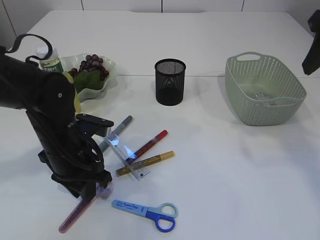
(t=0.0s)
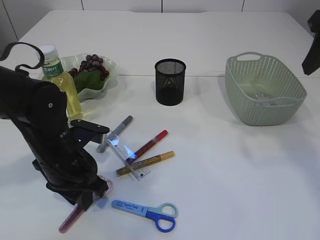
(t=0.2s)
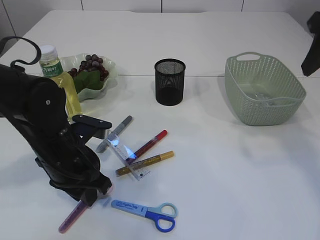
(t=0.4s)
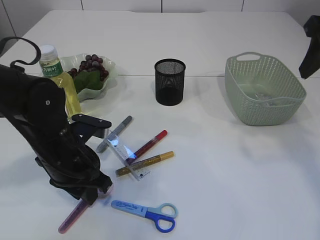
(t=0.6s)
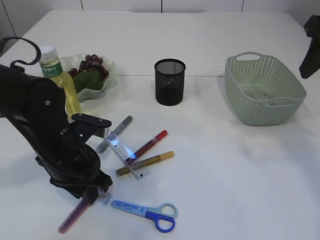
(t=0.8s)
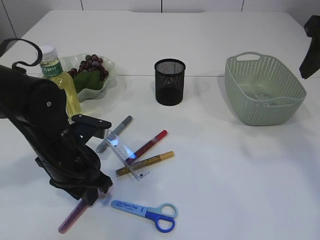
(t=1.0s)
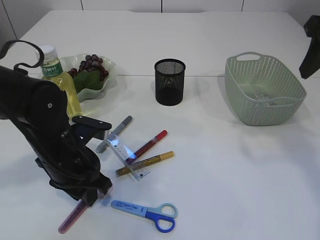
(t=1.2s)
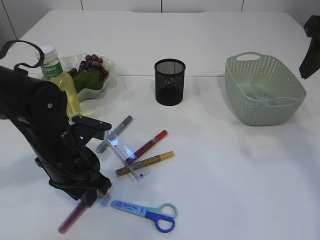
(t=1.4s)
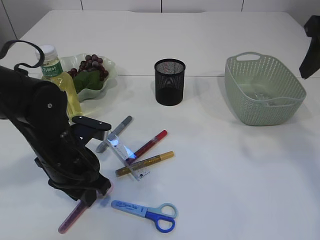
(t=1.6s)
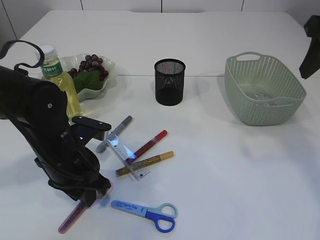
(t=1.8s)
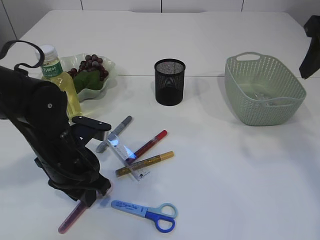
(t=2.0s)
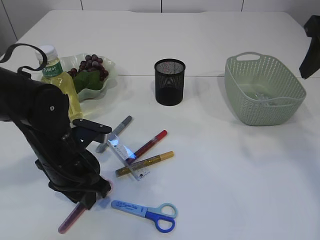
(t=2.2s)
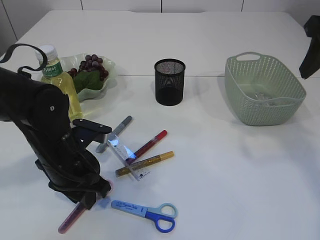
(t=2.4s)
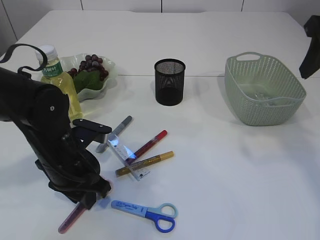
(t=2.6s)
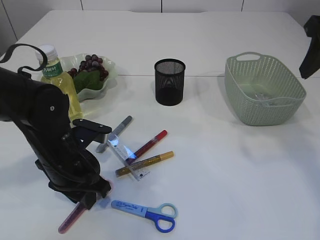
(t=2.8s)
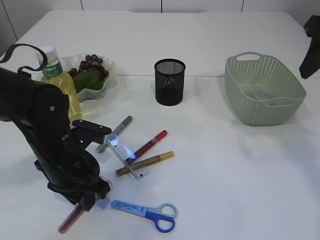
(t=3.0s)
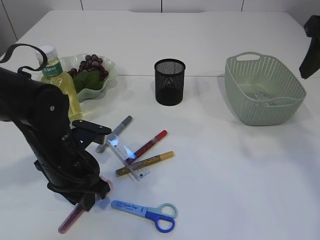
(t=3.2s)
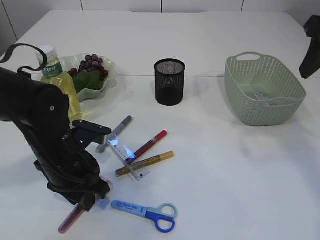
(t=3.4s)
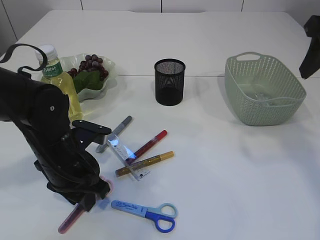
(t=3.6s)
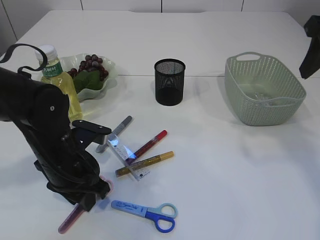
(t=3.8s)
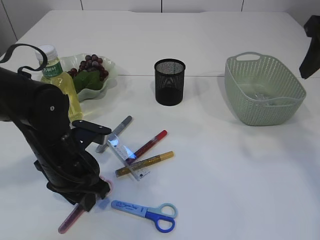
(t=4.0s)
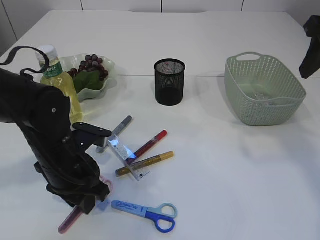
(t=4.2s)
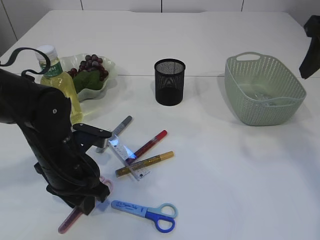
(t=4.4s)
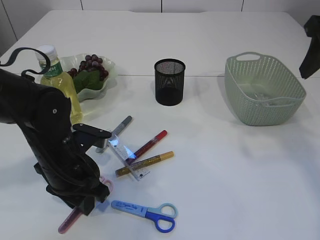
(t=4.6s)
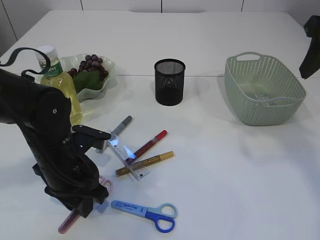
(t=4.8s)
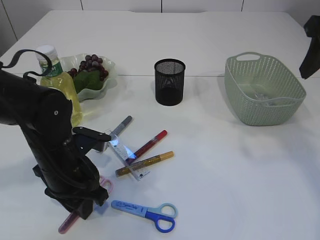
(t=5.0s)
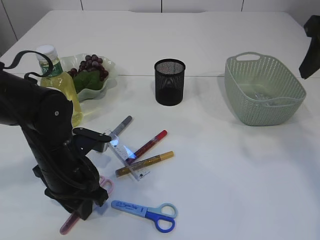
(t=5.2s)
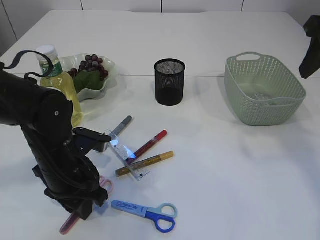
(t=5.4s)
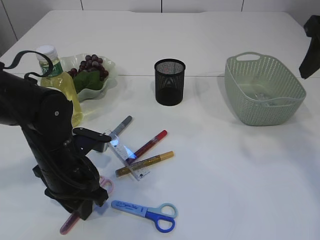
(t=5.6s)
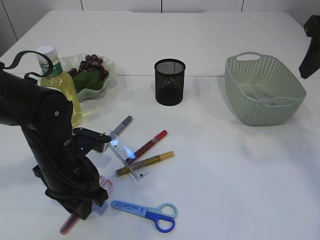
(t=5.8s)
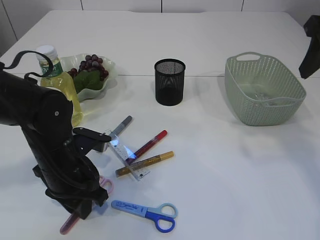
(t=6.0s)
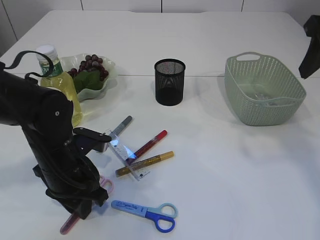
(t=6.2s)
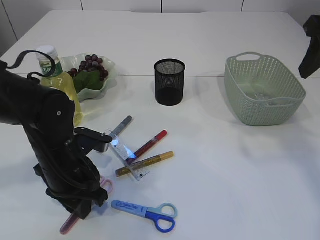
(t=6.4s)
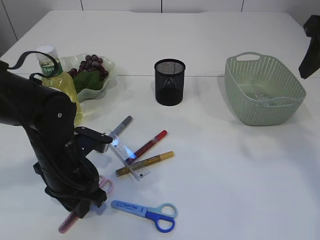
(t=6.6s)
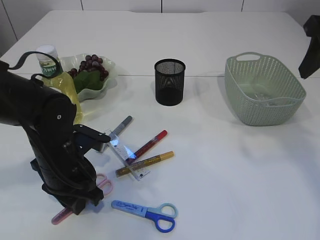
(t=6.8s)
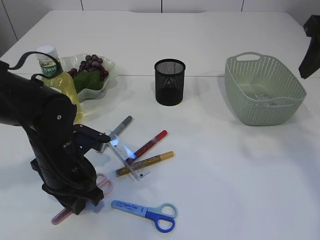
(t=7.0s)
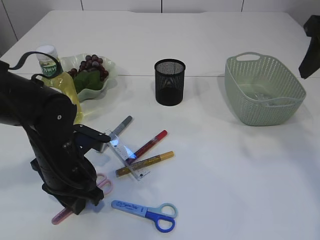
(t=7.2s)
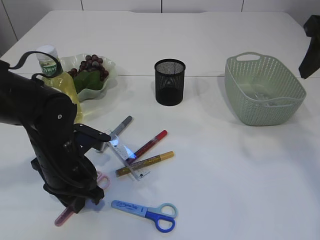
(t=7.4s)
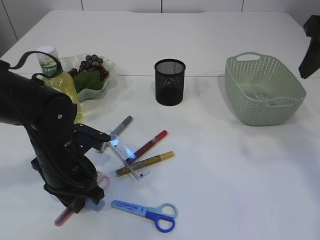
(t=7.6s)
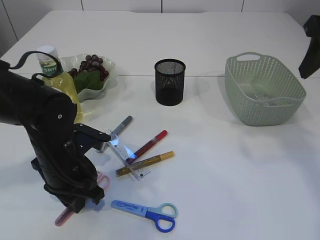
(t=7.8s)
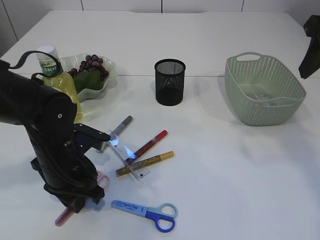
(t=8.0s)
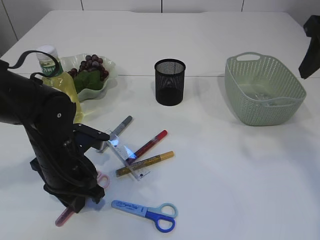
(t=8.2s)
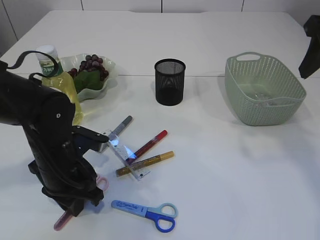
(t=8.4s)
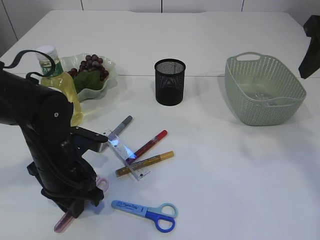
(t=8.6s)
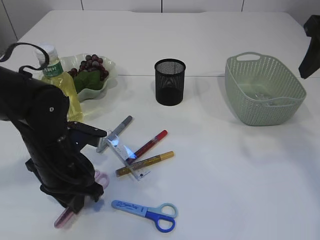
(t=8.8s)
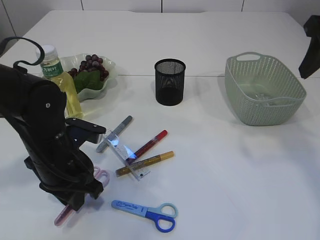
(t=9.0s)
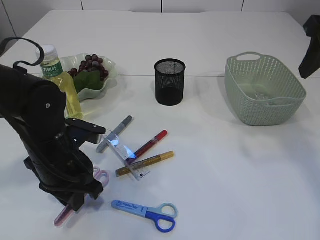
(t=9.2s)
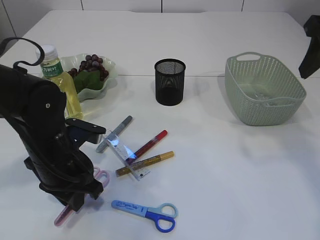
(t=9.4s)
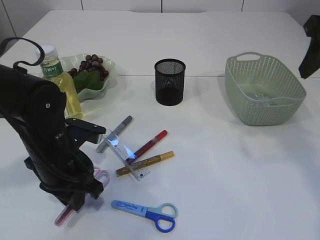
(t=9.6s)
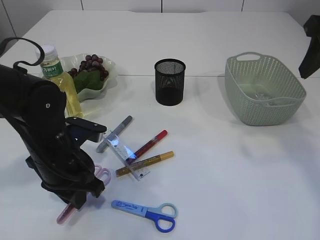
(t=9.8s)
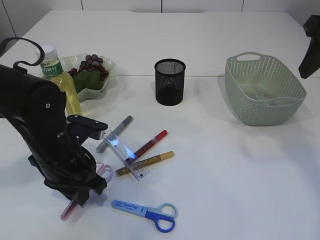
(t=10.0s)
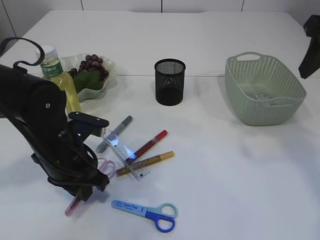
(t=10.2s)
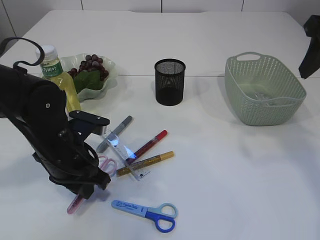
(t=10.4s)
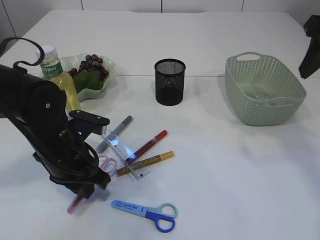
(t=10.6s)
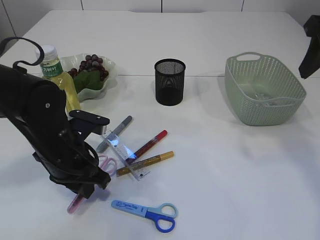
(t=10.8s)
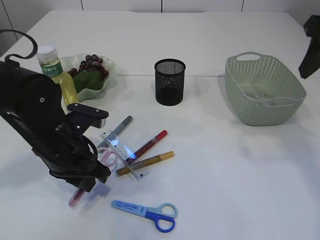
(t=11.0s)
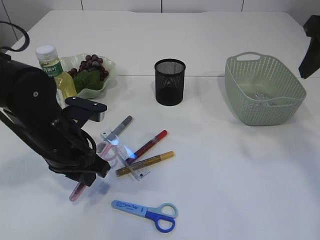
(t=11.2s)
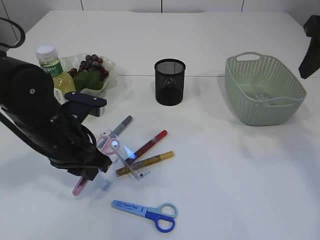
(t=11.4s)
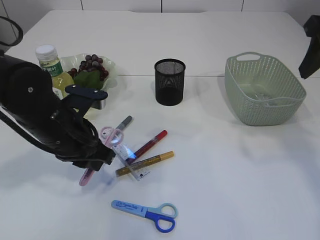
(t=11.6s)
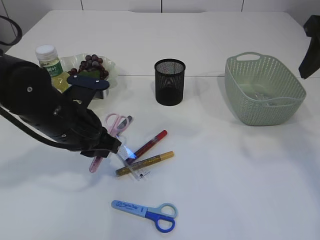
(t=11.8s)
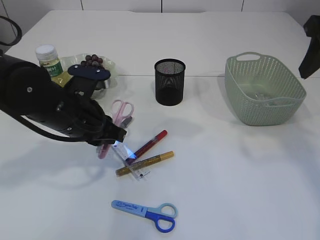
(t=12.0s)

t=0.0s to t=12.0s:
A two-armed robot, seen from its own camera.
Step, t=0.0s to t=12.0s: pick up the pink scissors.
t=0.0s to t=1.6s: There are only small adjustments of the grippers.
t=1.6s to t=4.4s: Both grippers stay about where they are.
t=4.4s to t=6.0s: The two grippers keep their place.
t=6.0s to t=10.4s: The grippers move only a little.
t=10.4s to t=12.0s: The left gripper changes place by approximately 5 cm.

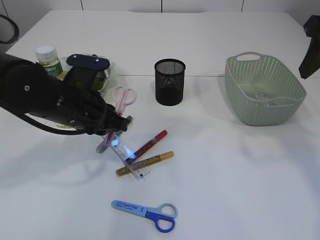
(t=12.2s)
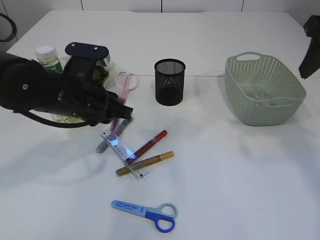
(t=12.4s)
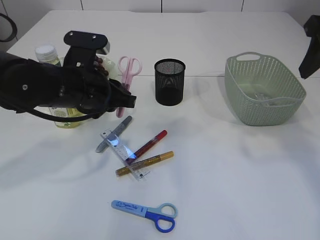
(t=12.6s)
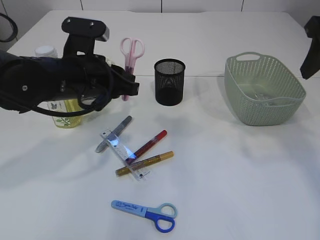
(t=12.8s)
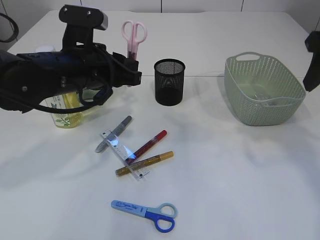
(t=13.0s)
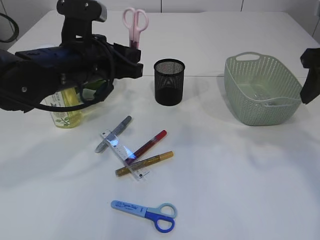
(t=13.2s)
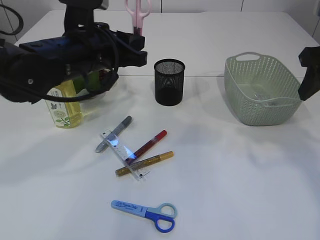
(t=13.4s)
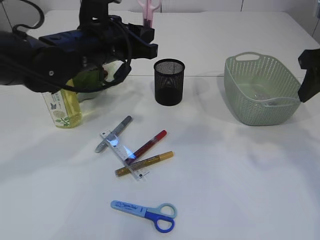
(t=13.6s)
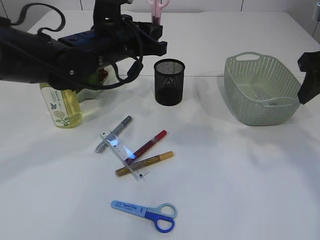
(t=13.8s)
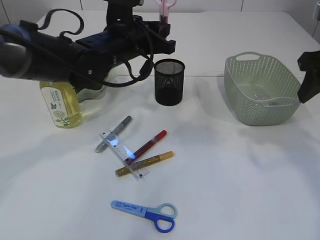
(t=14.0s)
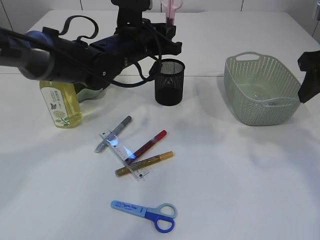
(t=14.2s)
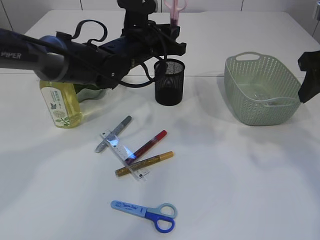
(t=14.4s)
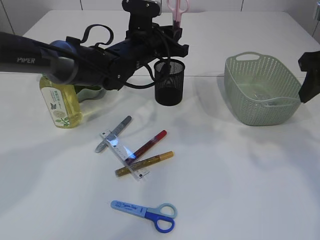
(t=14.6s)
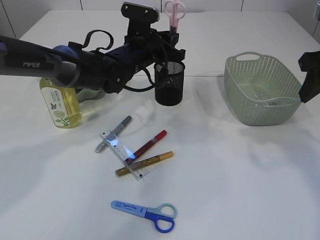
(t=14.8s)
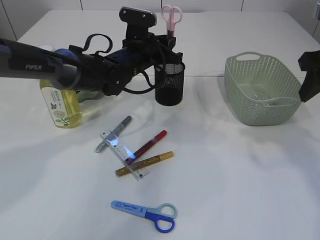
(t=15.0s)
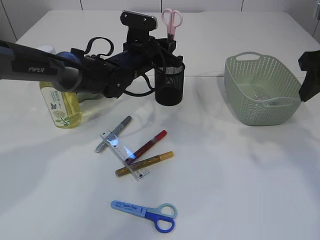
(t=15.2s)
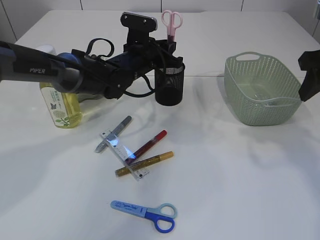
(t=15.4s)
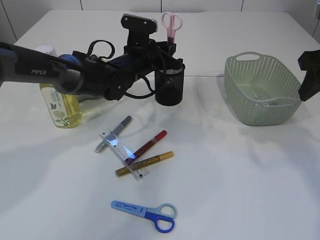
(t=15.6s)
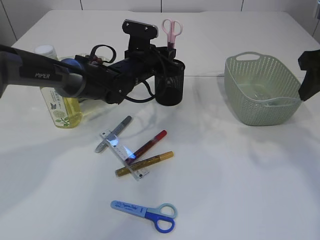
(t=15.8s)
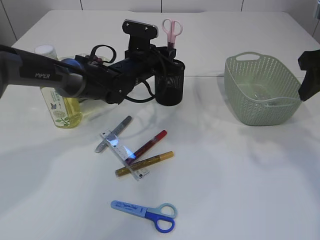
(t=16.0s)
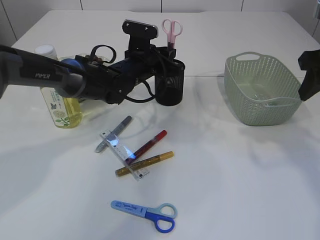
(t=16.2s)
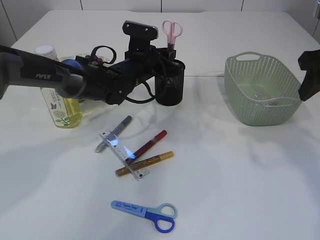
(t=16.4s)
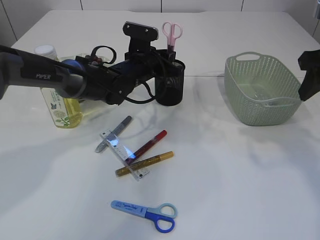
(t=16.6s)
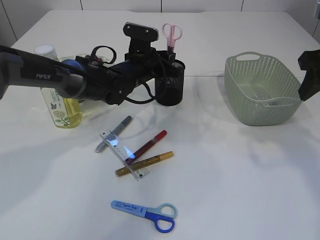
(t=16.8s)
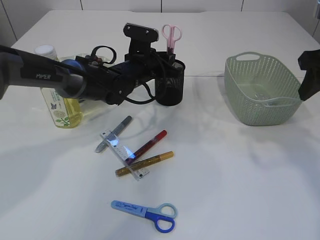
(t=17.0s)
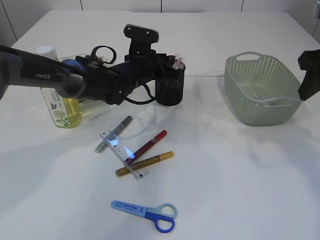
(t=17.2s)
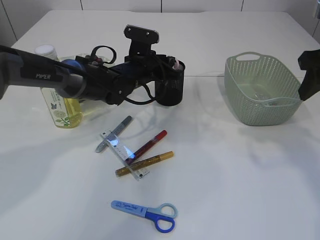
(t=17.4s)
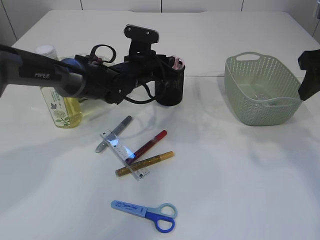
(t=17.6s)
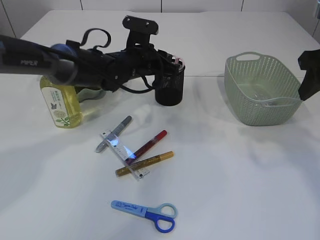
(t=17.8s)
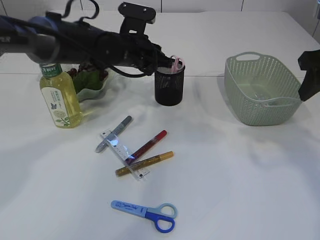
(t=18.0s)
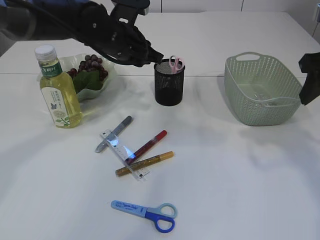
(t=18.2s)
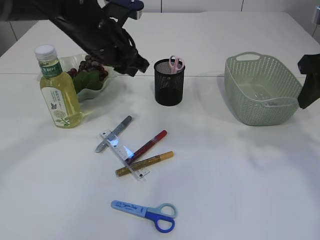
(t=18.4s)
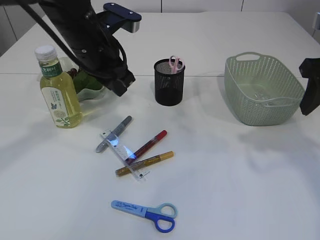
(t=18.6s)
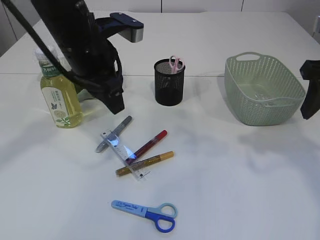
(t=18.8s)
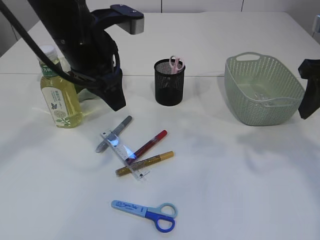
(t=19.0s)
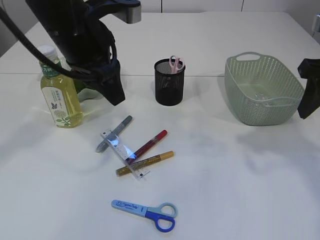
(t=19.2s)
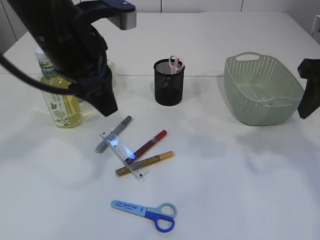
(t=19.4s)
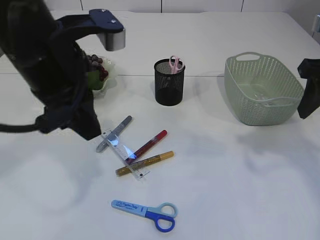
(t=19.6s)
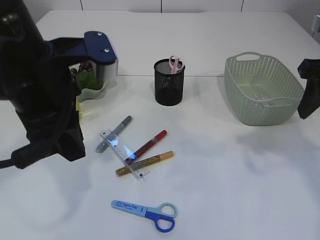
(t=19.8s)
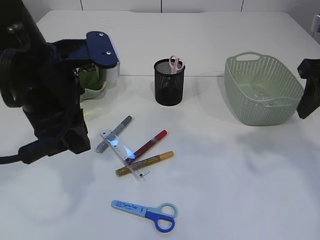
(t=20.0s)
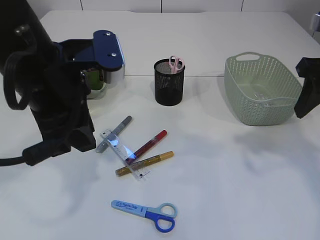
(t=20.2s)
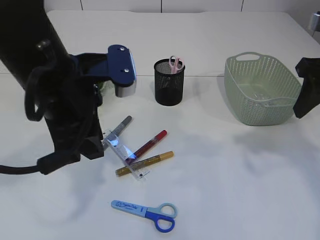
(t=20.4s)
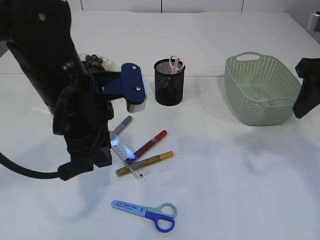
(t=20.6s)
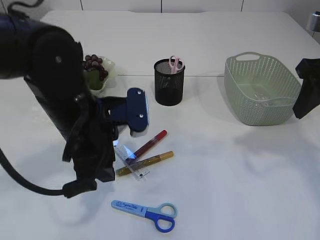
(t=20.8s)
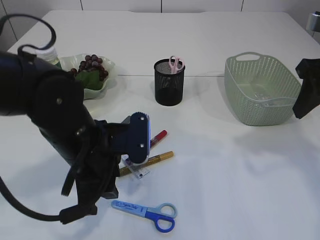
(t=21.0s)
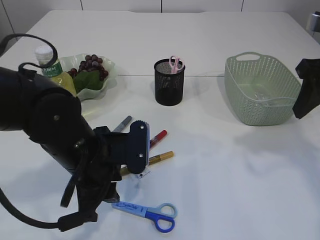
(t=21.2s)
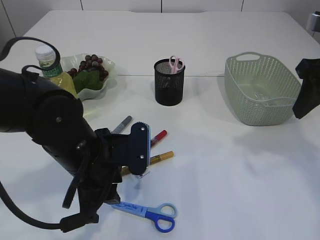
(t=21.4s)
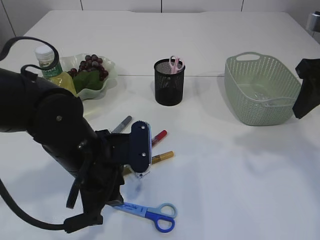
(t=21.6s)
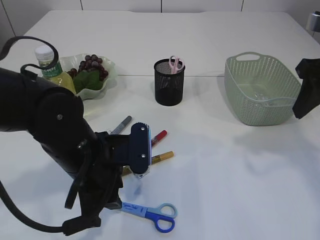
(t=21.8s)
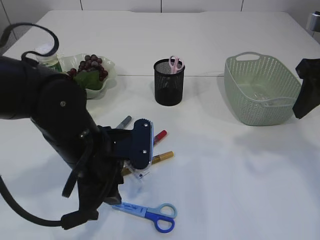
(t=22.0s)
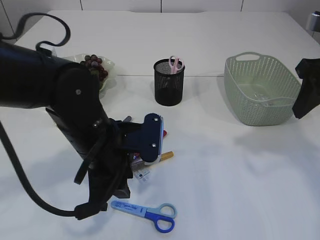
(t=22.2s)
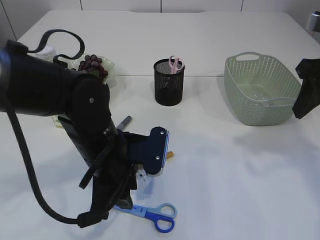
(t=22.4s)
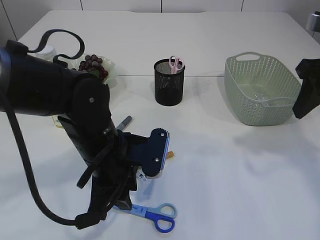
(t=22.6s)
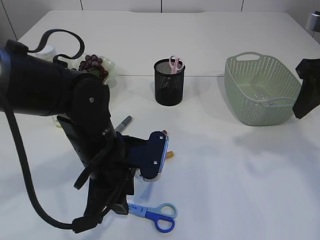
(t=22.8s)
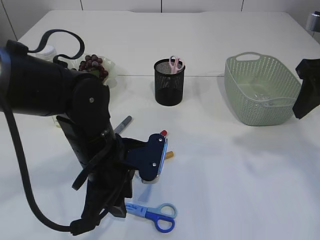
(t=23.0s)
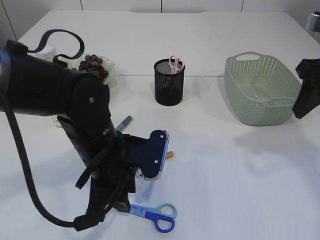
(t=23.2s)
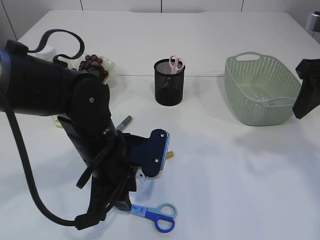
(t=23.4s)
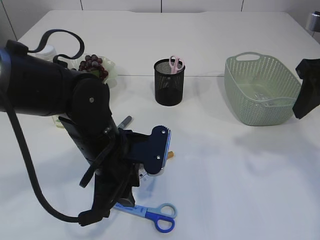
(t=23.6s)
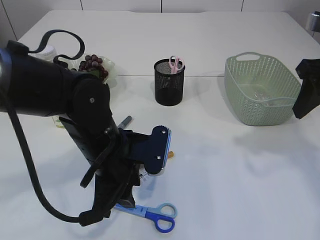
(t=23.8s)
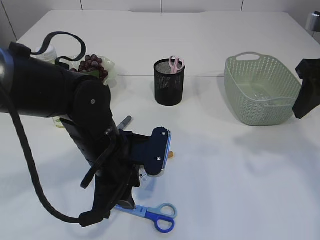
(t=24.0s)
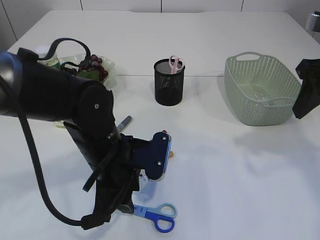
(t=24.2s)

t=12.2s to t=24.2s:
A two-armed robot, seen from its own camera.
Step, t=12.2s to t=18.2s: Place the pink scissors into the pen holder.
t=12.2s to t=13.8s: The left gripper heads forward, upward and to the right, covering some 10 cm.
t=13.8s to t=15.2s: The left gripper shifts some 10 cm forward and downward.
t=15.2s to t=16.6s: There are only small adjustments of the grippers.
t=16.6s to t=18.2s: The left gripper moves upward, about 10 cm.
t=18.2s to t=19.8s: The left gripper moves backward, roughly 20 cm.
t=19.8s to t=21.2s: The left gripper travels downward by approximately 15 cm.
t=21.2s to t=22.6s: The grippers move only a little.
t=22.6s to t=24.2s: Both grippers stay about where they are.
